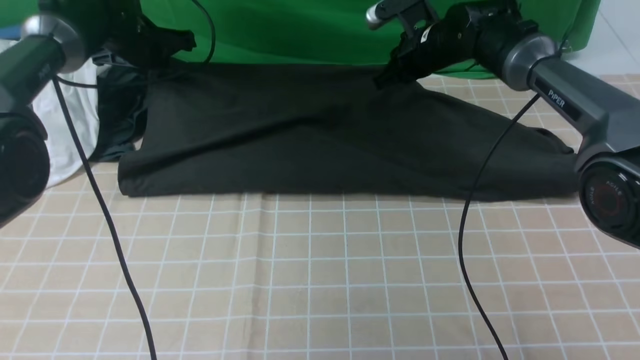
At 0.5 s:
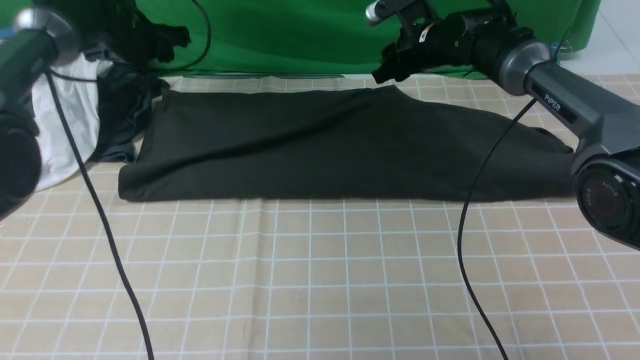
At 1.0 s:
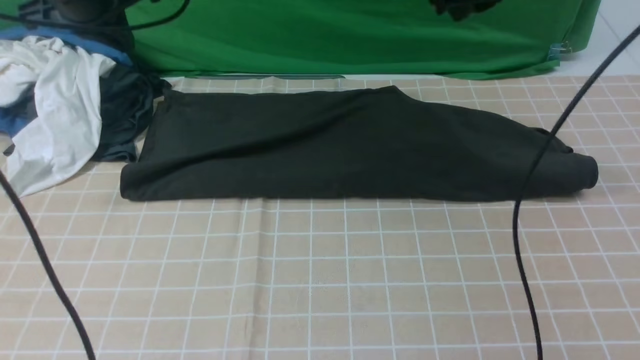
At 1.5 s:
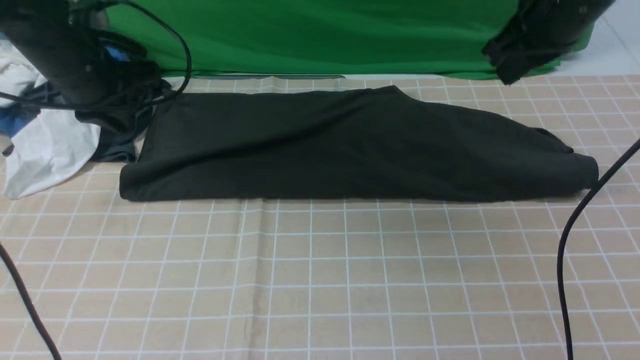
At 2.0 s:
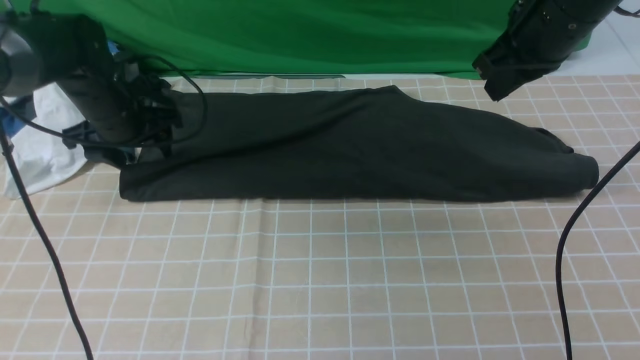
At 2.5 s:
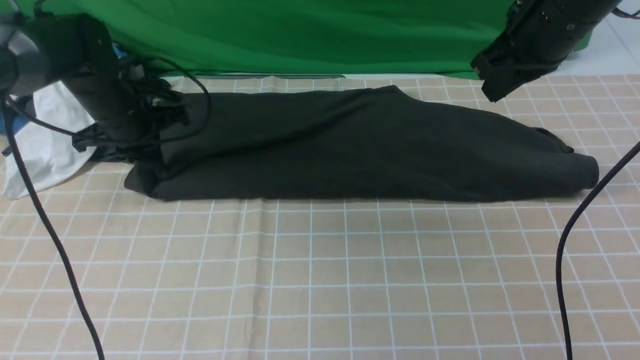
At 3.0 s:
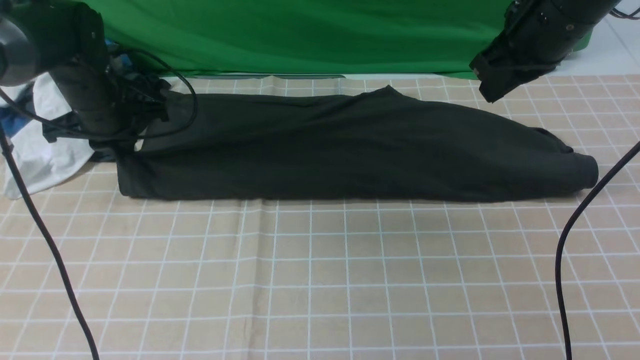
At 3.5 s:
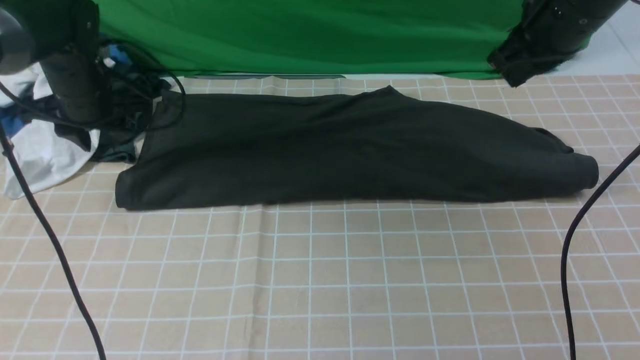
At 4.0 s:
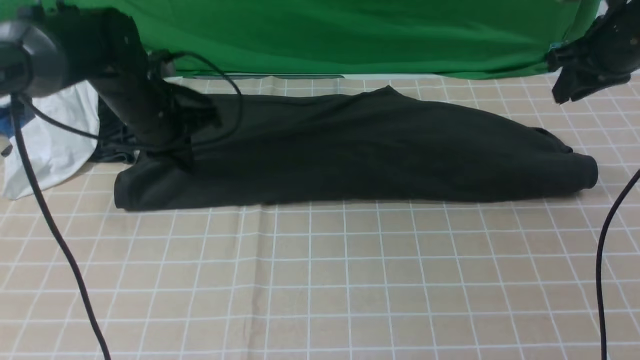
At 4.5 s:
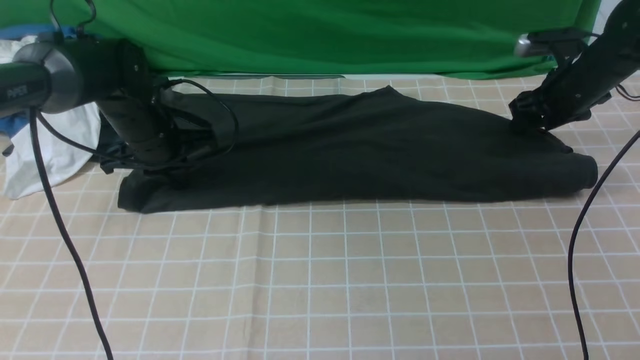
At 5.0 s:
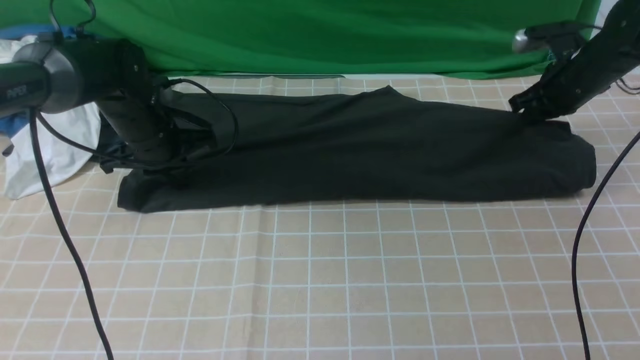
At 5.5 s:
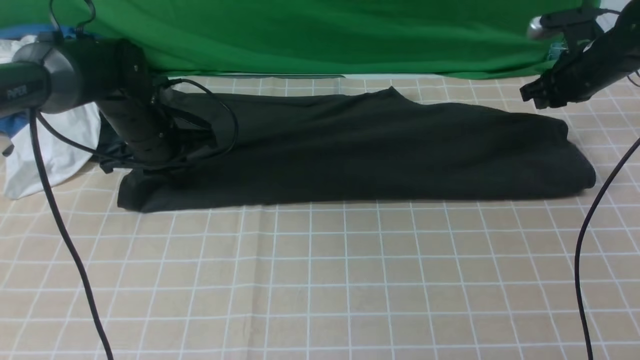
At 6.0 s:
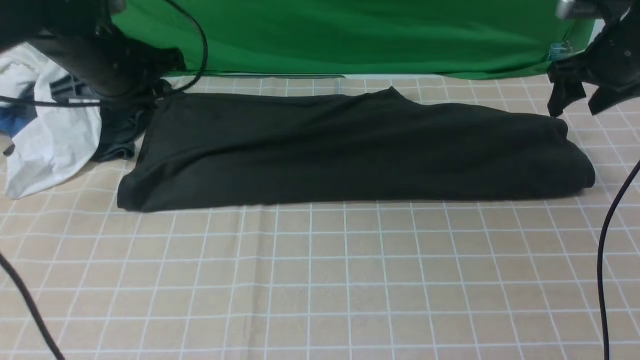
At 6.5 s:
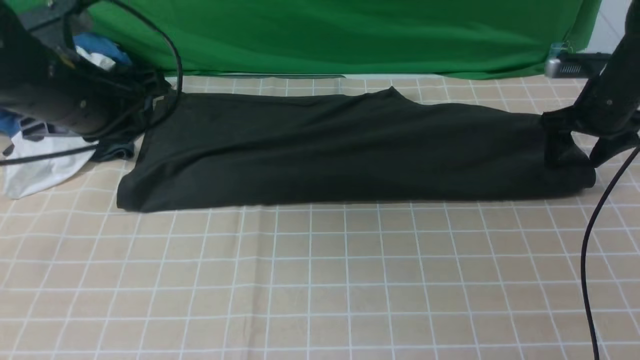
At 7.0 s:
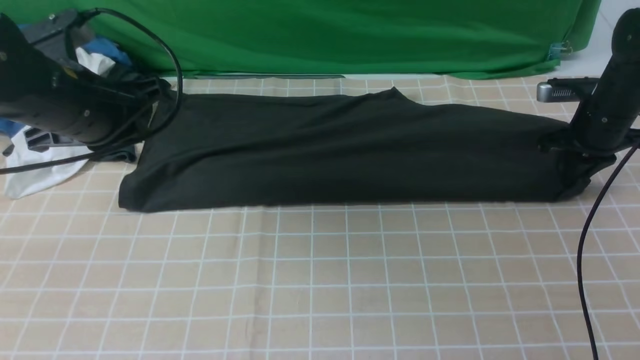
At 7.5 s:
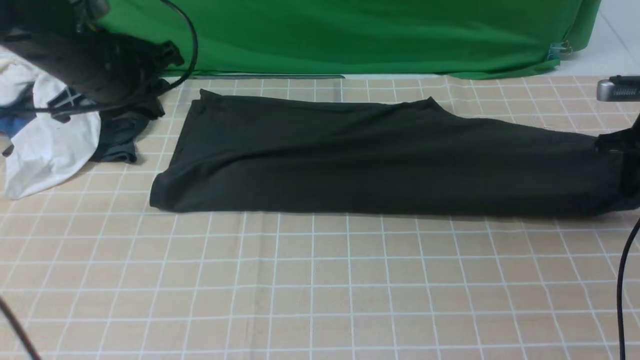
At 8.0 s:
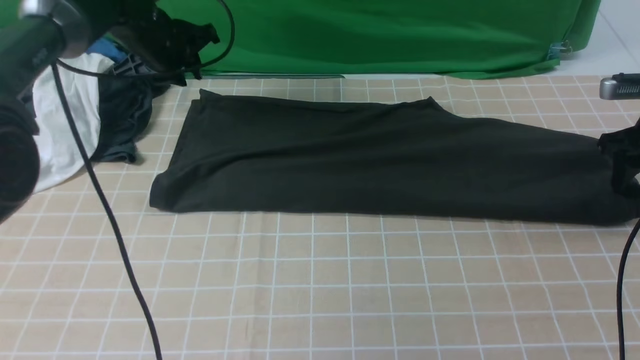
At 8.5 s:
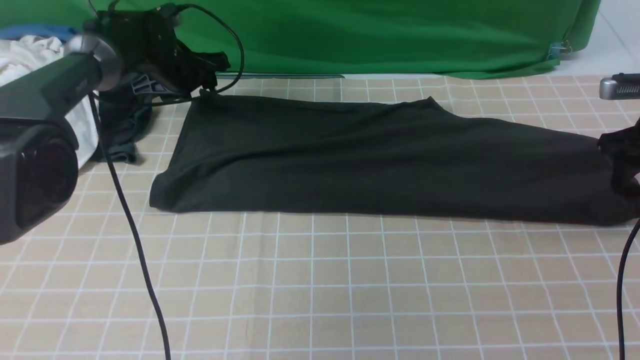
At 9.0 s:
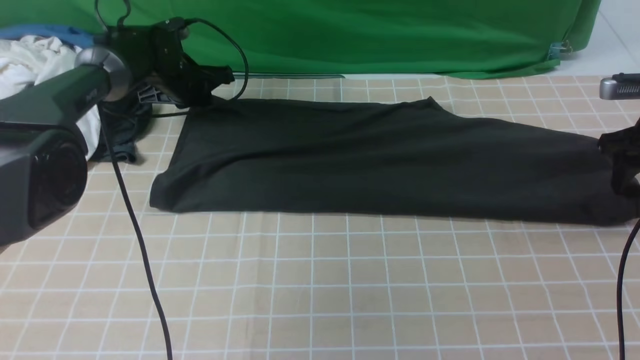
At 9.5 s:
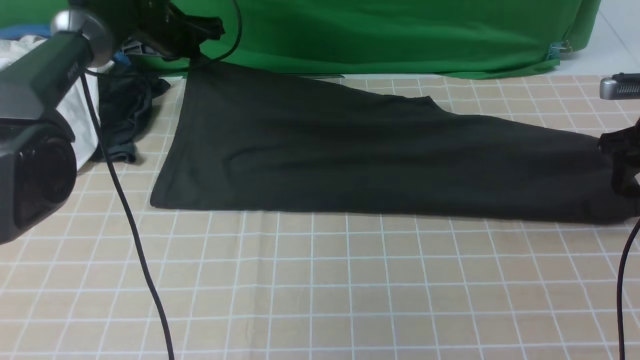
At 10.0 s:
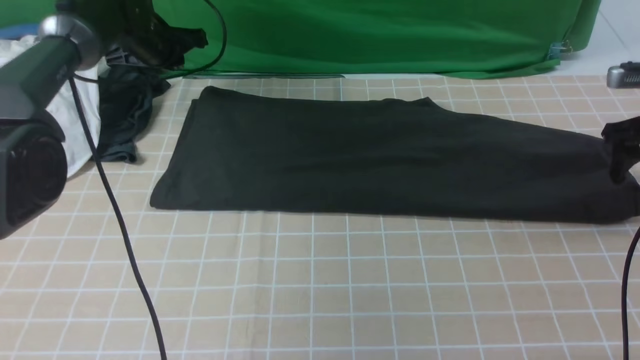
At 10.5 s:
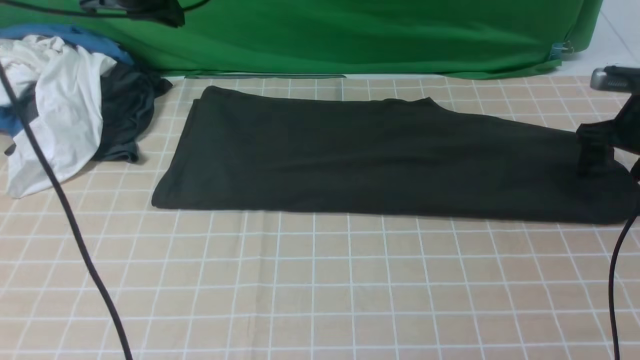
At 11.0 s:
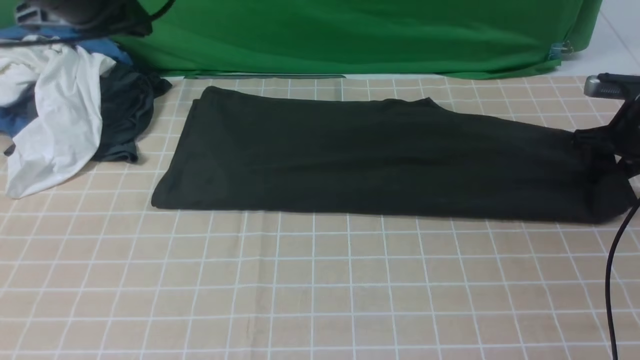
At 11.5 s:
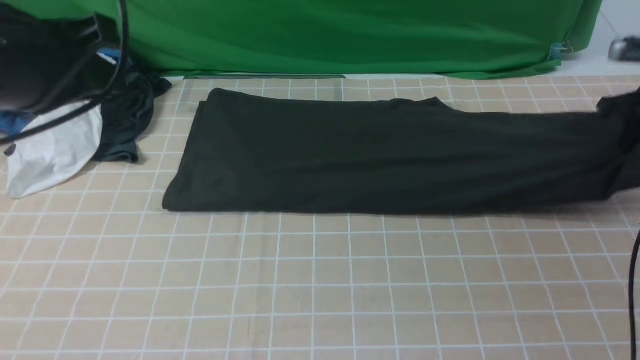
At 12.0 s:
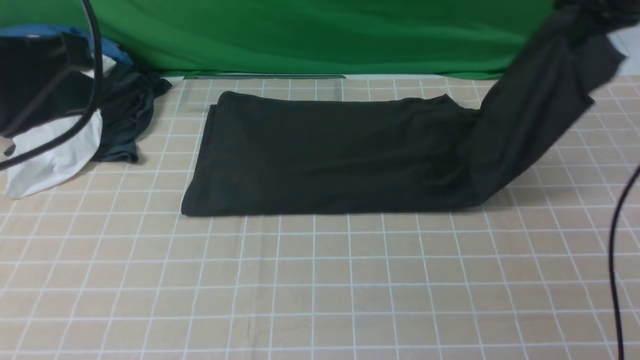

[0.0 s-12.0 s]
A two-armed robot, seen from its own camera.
Step, 1.0 to 11.0 s: use the right arm to clamp the right edge of the fabric.
0.0 to 2.0 s: The left gripper is displaced backward by roughly 10 cm, reaches roughly 10 cm upward, then returns, and opens up, while the right gripper is displaced backward, upward and to the right by roughly 20 cm, and opens, then closes again.
2.0 to 4.0 s: The left gripper closes its fingers, while the right gripper heads to the right, downward and forward, covering about 15 cm, and opens.
4.0 to 6.0 s: The right gripper goes downward and returns, about 10 cm each way, and opens up. Meanwhile the left gripper moves upward, approximately 10 cm.
6.0 to 8.0 s: The left gripper moves forward and downward, approximately 15 cm, and opens its fingers. The right gripper is displaced to the right and backward by some 5 cm, and closes, then reopens.
8.0 to 10.0 s: The left gripper closes.
10.0 to 12.0 s: The left gripper goes approximately 35 cm backward and upward; the right gripper travels upward and to the left by roughly 20 cm, and closes its fingers.

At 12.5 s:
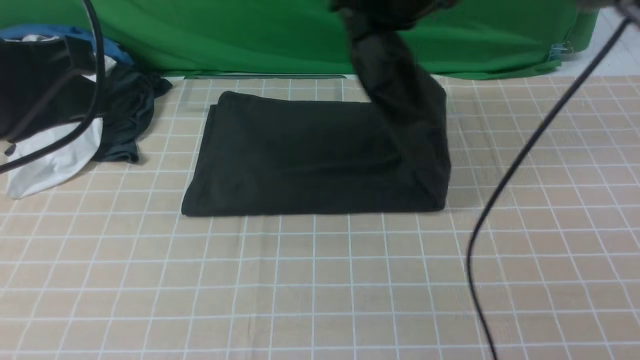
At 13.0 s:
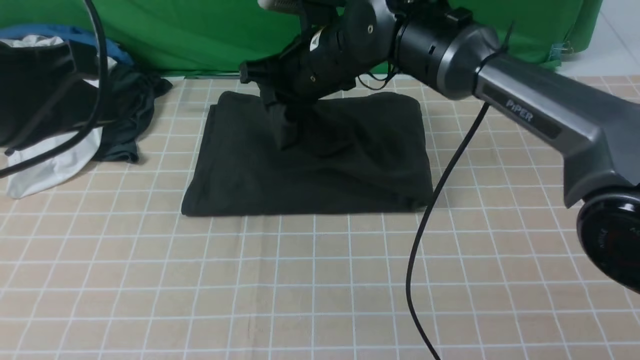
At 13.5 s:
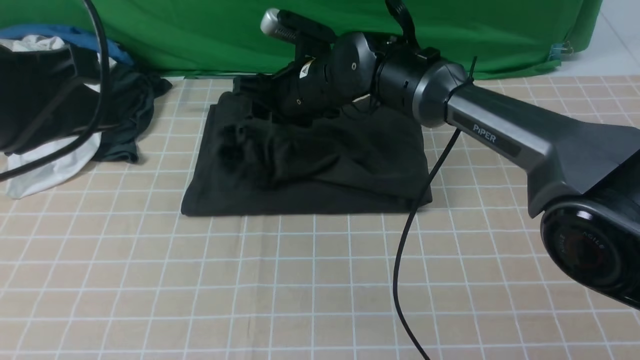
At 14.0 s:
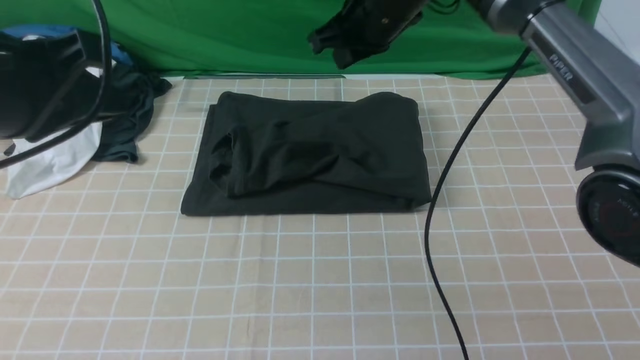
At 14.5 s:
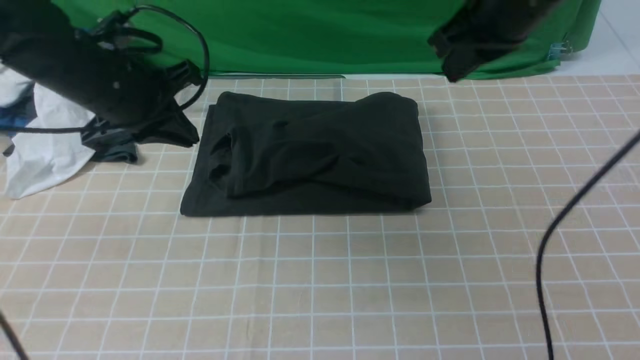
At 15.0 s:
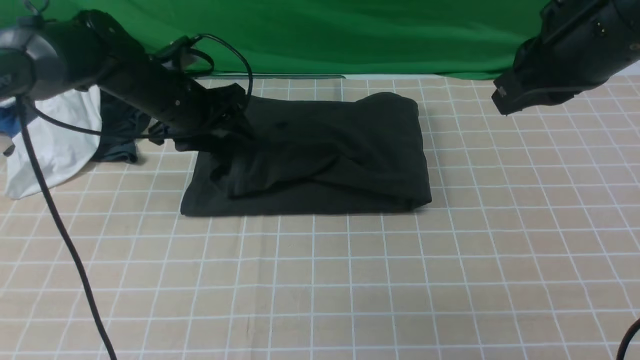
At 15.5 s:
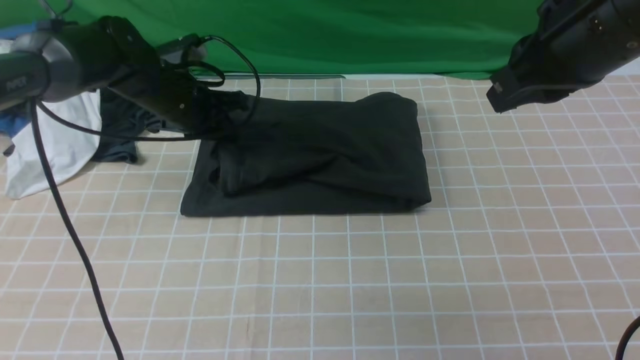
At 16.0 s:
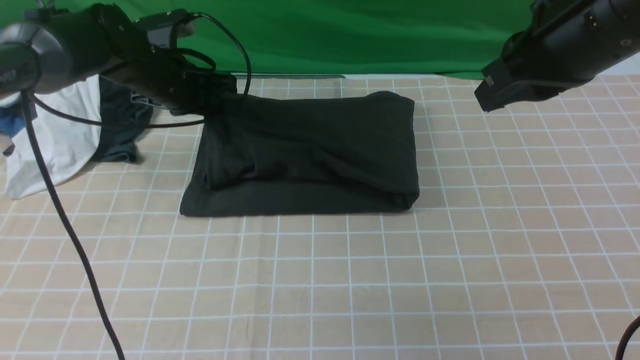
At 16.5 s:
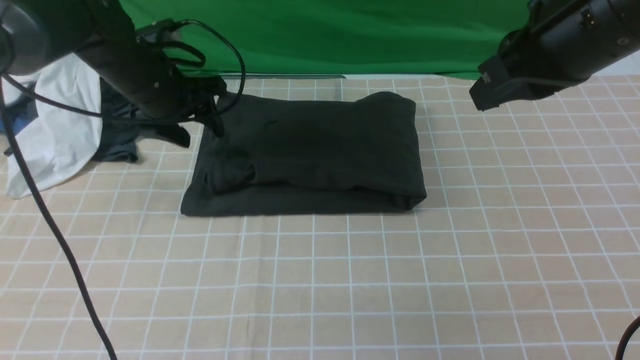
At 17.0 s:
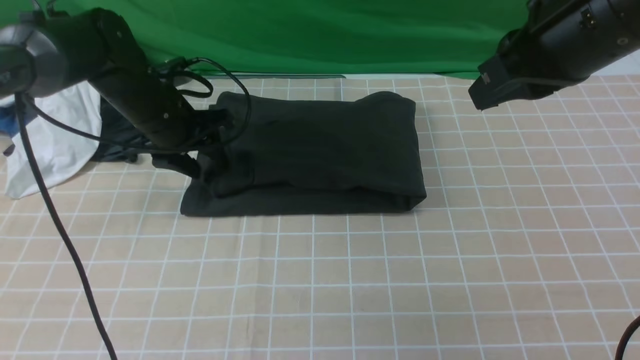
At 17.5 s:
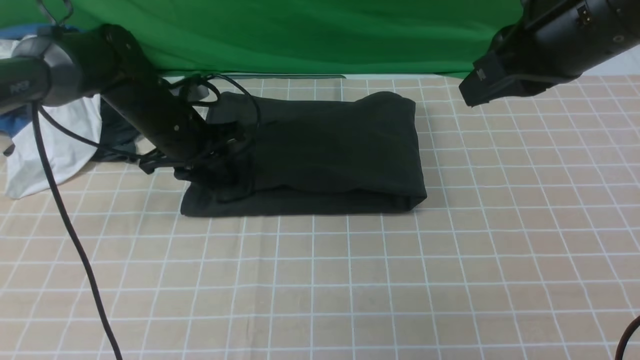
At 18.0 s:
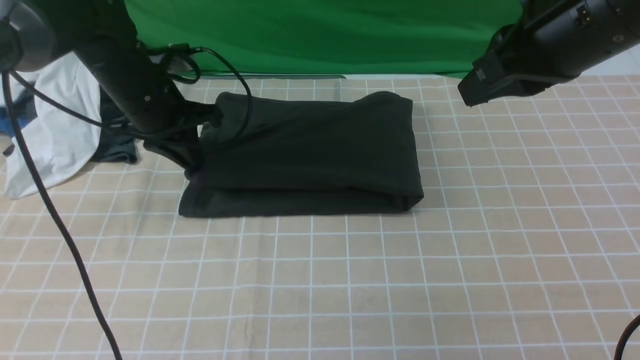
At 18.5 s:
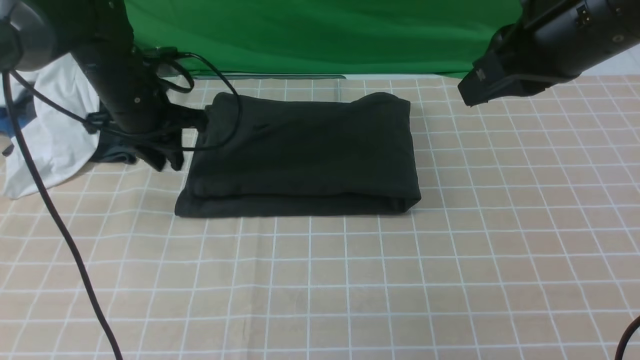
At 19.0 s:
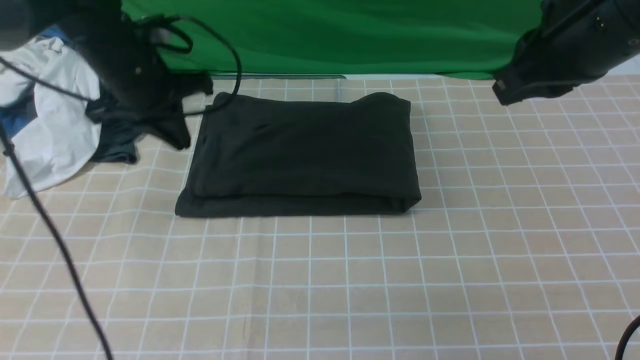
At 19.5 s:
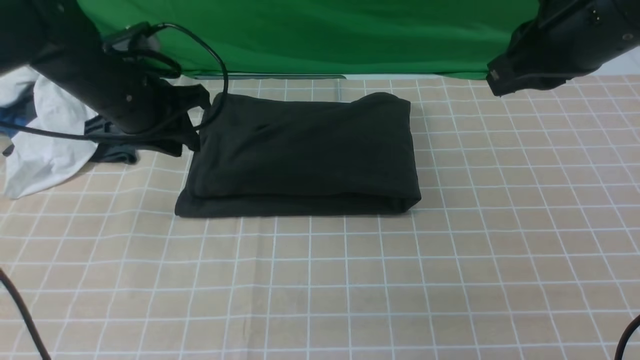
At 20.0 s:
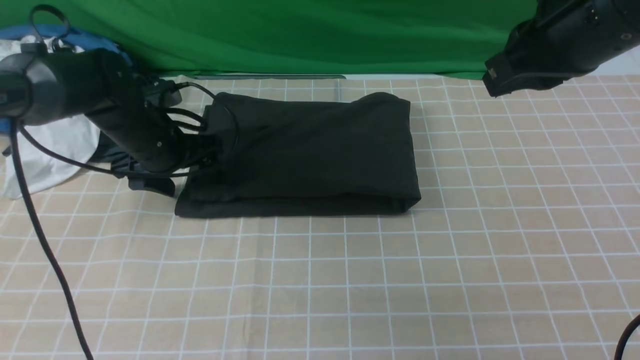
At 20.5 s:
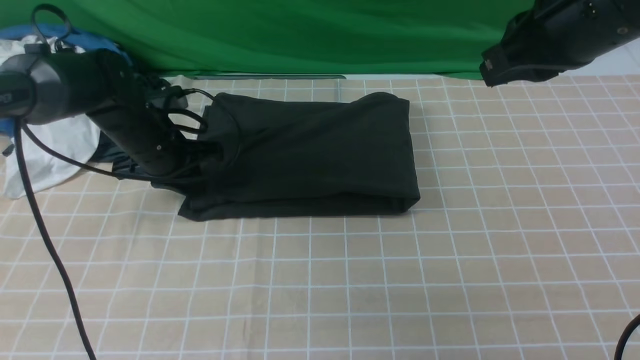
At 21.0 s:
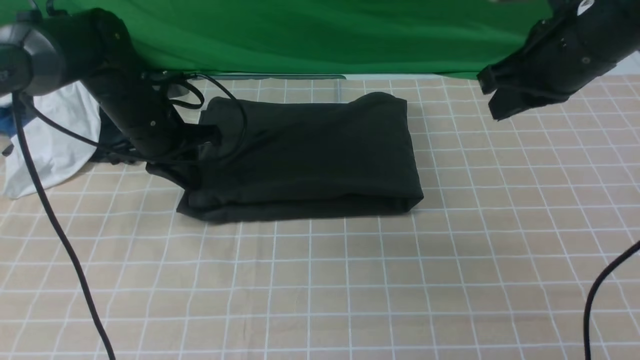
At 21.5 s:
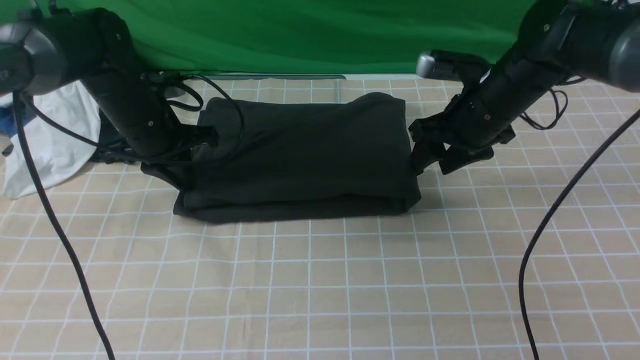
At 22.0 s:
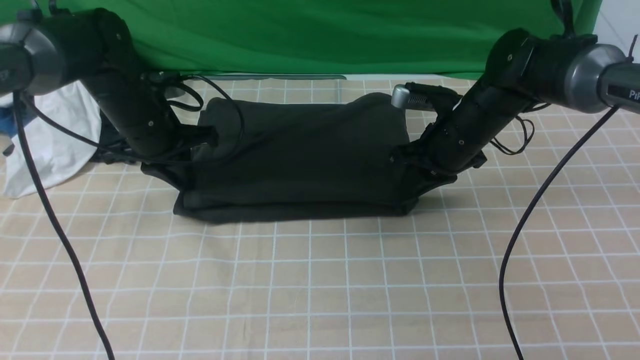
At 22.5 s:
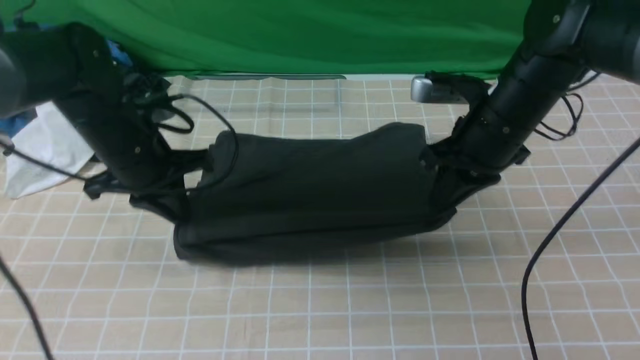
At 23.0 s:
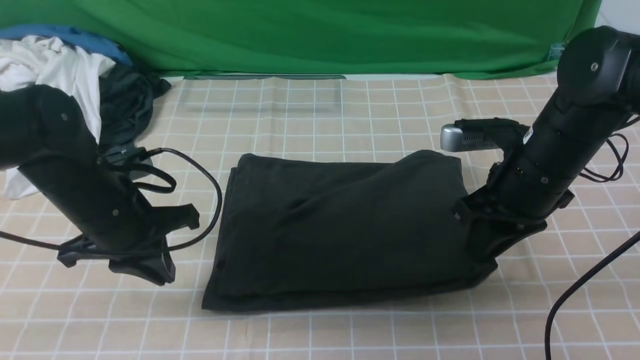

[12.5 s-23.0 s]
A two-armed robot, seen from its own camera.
12.5 to 14.5 s: The right gripper moves to the right and backward, roughly 10 cm, and opens, then closes again, while the left gripper moves forward and downward, about 20 cm.
14.5 to 16.5 s: The right gripper travels backward by roughly 10 cm; the left gripper goes roughly 10 cm forward and downward, and opens.
16.5 to 19.0 s: The left gripper closes.
19.0 to 21.0 s: The right gripper shifts about 10 cm downward and forward. The left gripper is displaced downward by about 5 cm, and opens and closes again.
21.0 to 23.0 s: The right gripper heads downward, covering some 10 cm, and opens, then closes once more. Meanwhile the left gripper is displaced backward by approximately 15 cm.
